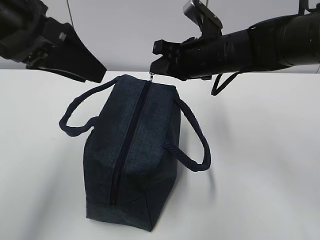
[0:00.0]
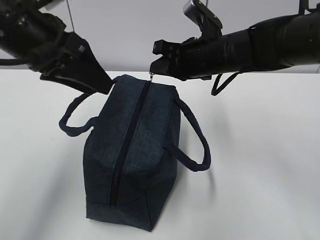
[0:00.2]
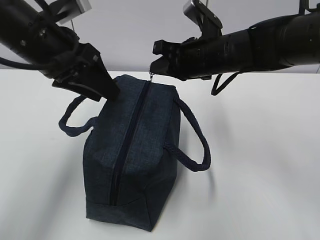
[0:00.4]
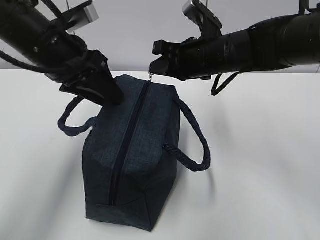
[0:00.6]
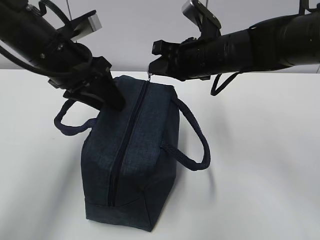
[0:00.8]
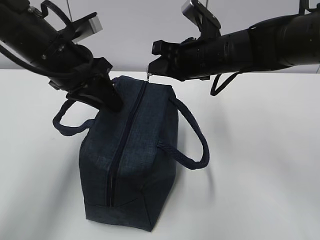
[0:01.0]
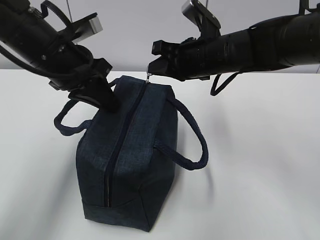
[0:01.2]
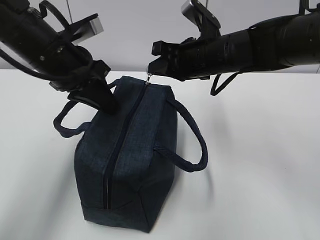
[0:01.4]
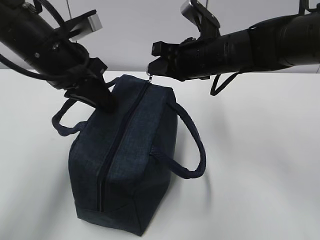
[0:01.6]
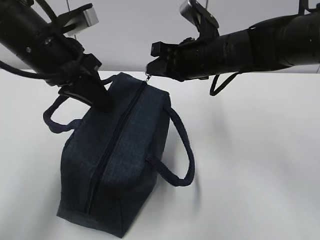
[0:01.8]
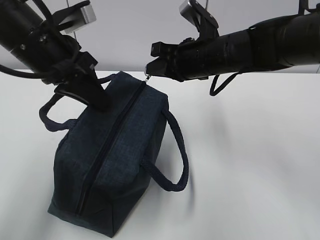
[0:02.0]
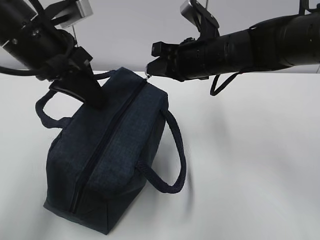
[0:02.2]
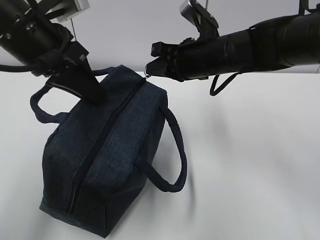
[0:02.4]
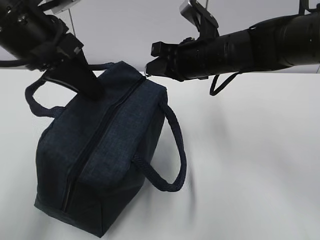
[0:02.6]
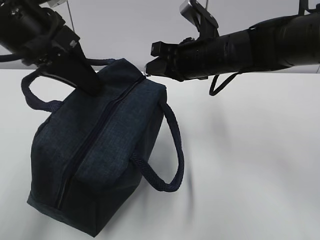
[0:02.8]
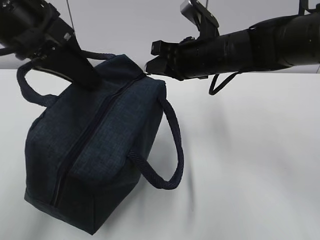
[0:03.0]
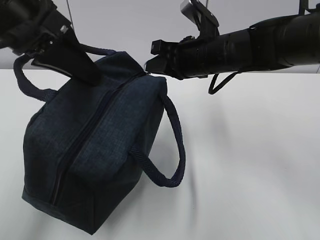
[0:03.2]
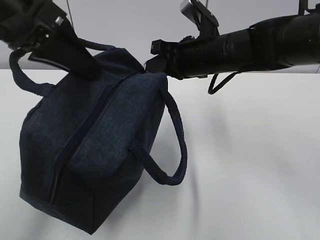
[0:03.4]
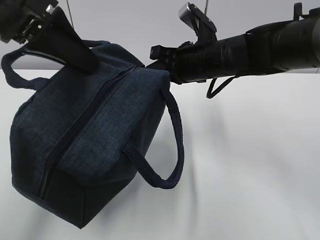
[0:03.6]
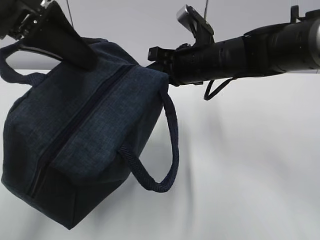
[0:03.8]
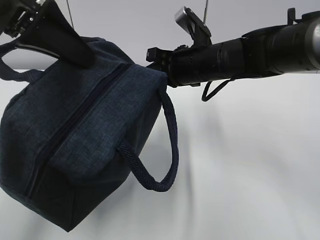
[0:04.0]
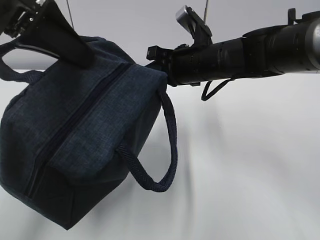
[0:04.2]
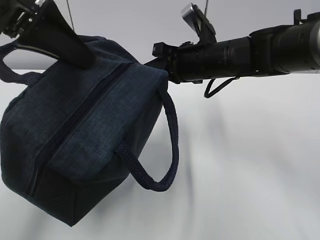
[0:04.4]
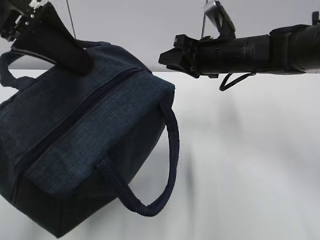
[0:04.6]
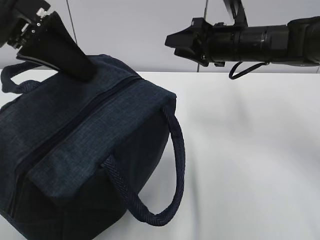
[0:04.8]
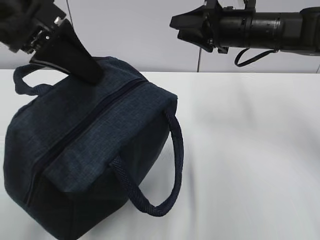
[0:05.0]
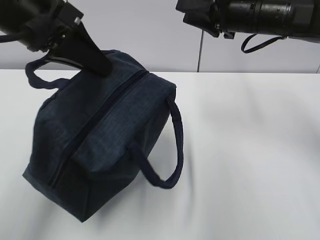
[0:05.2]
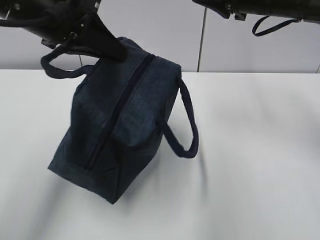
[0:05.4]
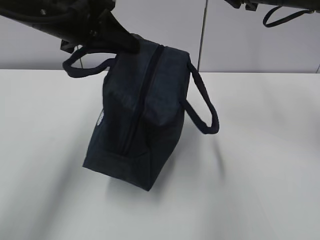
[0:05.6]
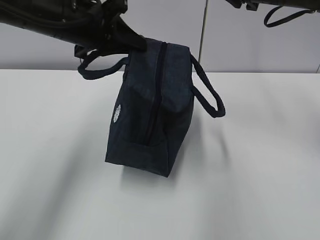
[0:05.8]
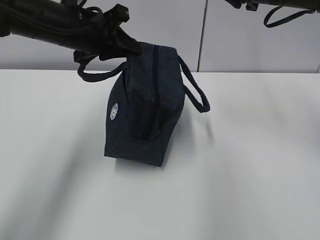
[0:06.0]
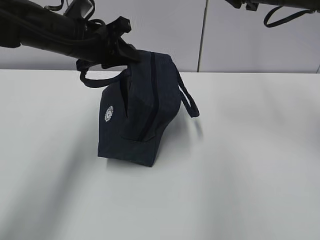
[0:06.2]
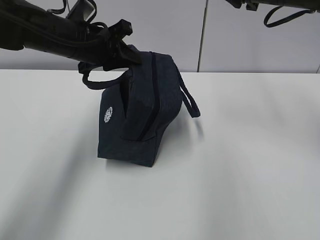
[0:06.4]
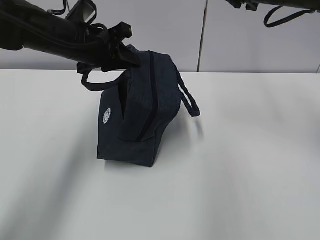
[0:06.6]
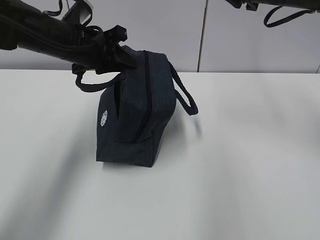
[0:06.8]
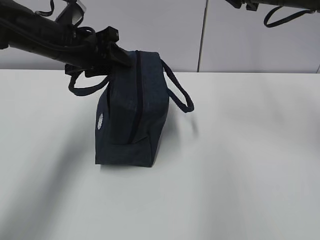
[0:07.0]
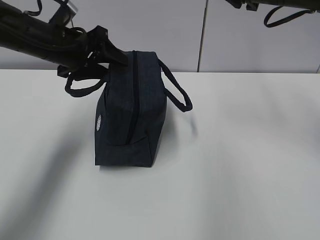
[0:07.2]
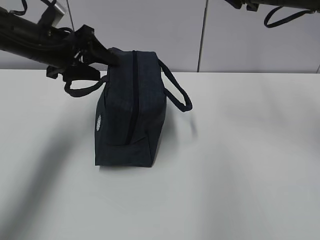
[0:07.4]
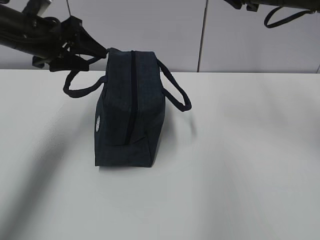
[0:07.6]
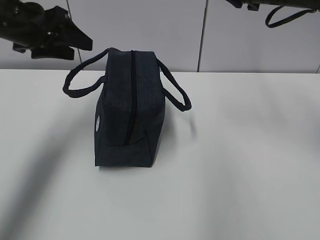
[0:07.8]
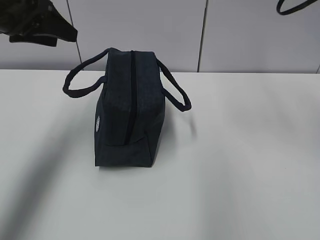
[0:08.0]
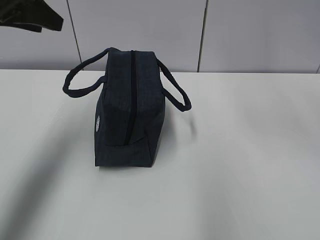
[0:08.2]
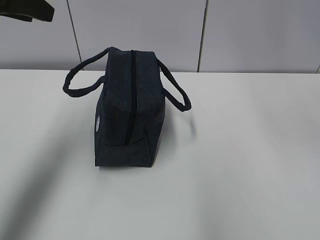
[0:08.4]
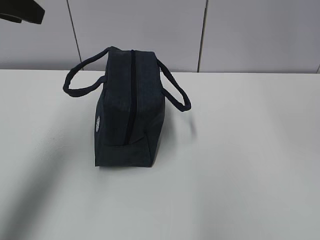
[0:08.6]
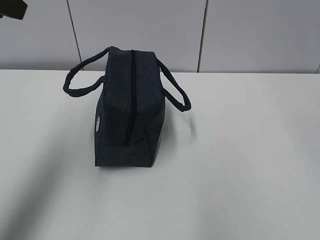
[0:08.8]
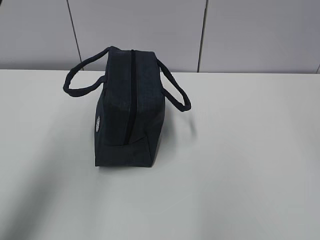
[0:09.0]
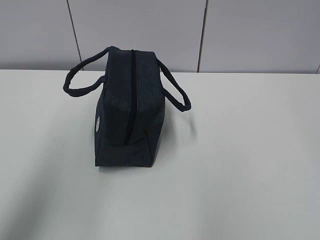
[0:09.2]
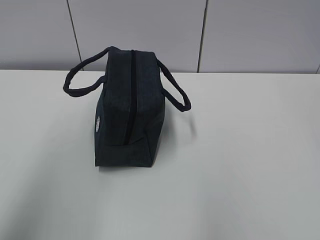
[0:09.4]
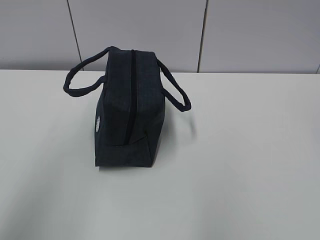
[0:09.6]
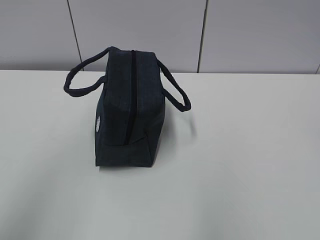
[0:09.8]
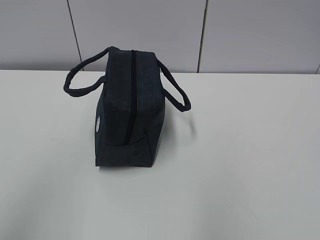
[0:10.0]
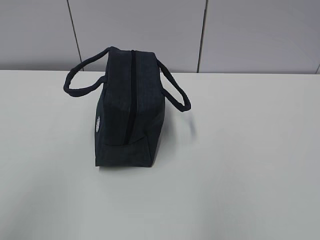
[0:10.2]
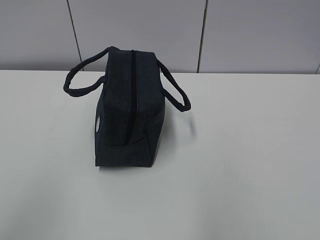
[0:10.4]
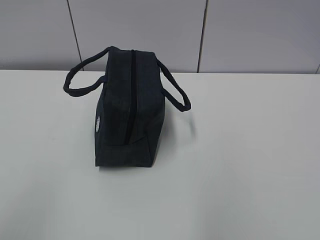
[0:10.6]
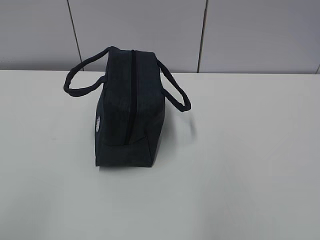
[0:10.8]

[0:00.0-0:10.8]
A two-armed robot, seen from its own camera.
0:00.0 to 0:01.6: The left gripper is displaced downward and forward by about 10 cm, and closes its fingers.
0:01.6 to 0:03.0: The left gripper is displaced upward by about 5 cm.
0:03.0 to 0:04.6: The right gripper opens up.
0:04.6 to 0:06.2: The left gripper heads forward and downward, covering about 20 cm; the right gripper moves upward and to the right, roughly 15 cm.
0:06.2 to 0:07.8: The left gripper is displaced to the left by approximately 10 cm, and opens its fingers.
0:07.8 to 0:09.2: The grippers both shift backward and upward by roughly 30 cm.
0:09.2 to 0:10.8: The left gripper is displaced backward and downward by some 25 cm.

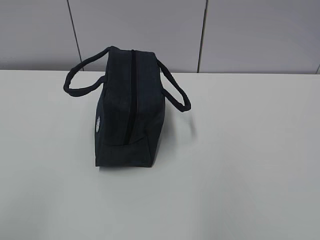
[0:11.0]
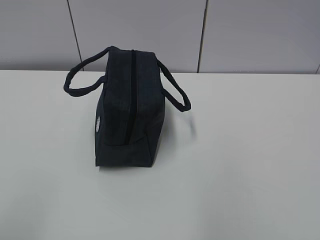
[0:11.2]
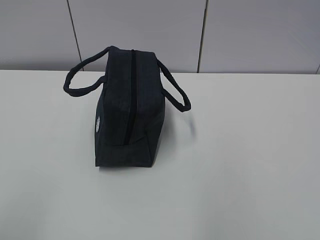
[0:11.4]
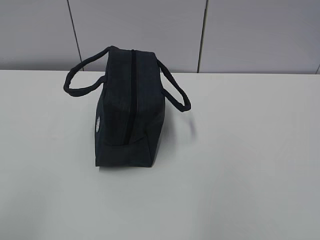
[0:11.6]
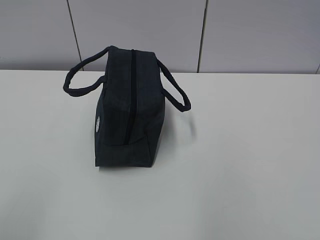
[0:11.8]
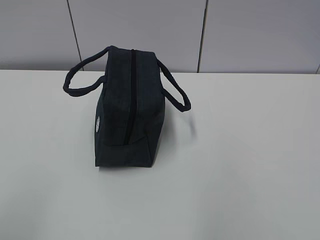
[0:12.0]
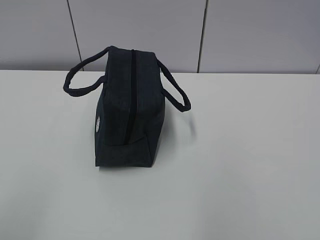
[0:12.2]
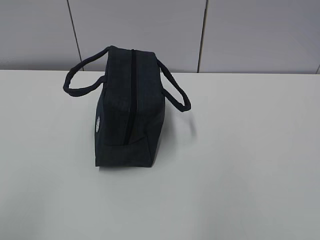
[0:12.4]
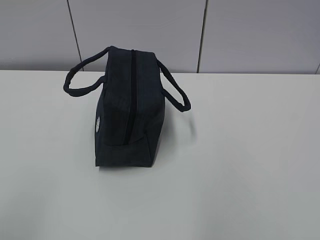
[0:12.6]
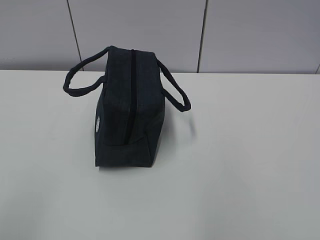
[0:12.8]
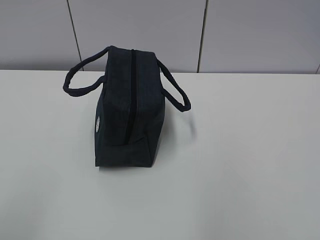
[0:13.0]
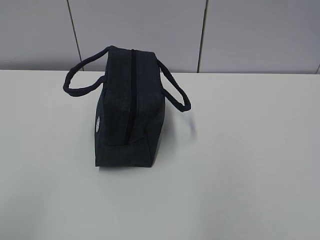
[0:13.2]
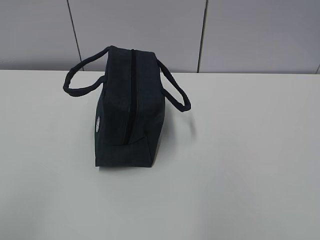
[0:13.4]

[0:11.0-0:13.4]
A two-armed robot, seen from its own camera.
0:12.2 to 0:13.4: Both grippers stay about where they are.

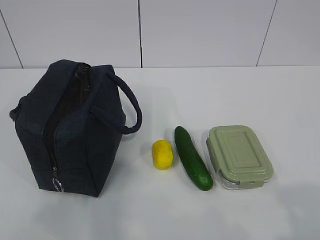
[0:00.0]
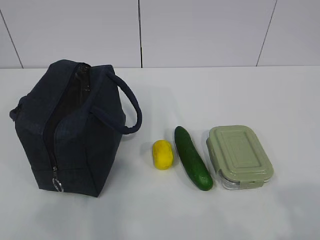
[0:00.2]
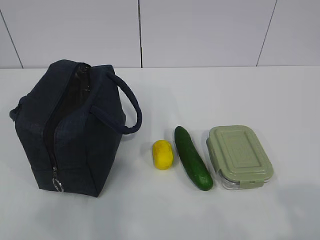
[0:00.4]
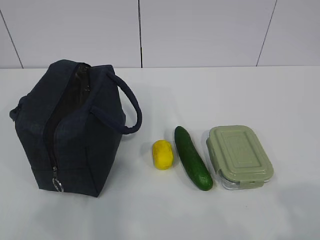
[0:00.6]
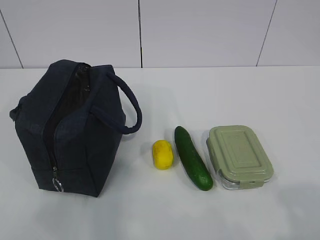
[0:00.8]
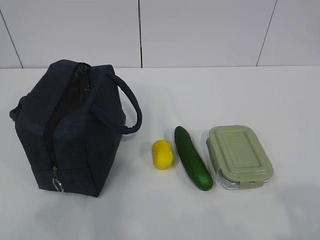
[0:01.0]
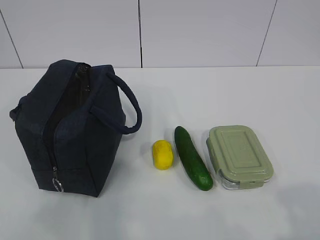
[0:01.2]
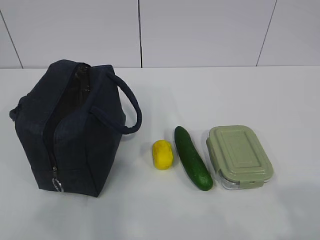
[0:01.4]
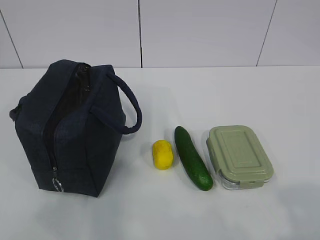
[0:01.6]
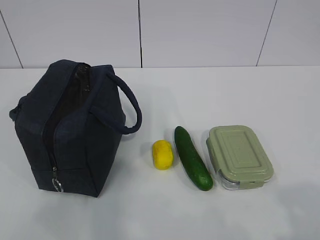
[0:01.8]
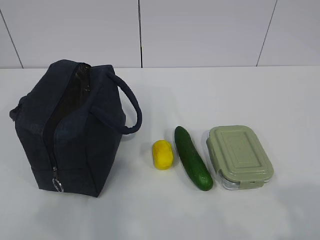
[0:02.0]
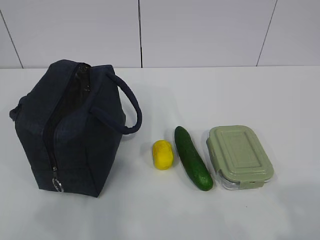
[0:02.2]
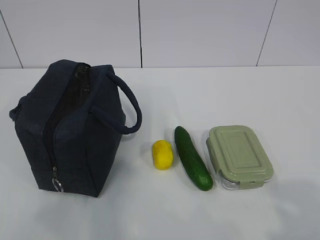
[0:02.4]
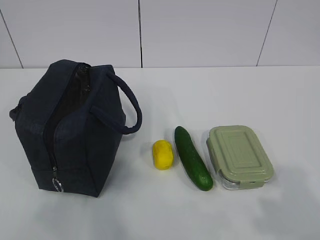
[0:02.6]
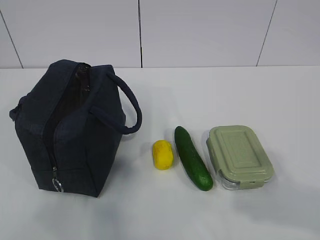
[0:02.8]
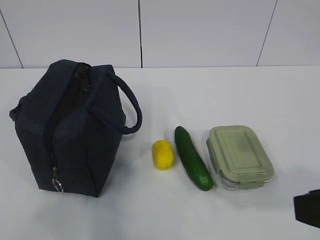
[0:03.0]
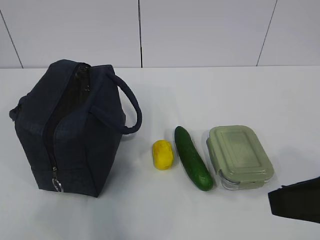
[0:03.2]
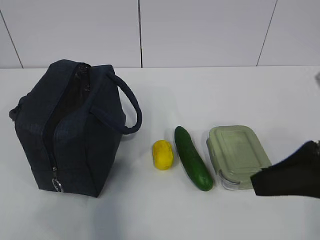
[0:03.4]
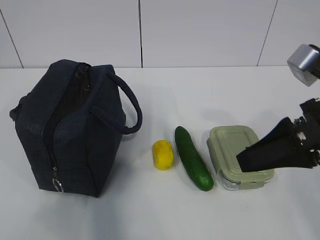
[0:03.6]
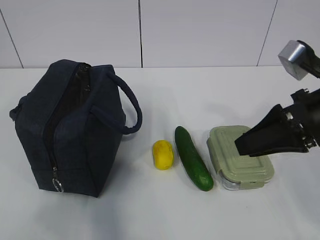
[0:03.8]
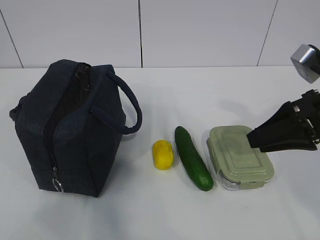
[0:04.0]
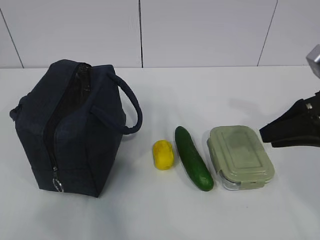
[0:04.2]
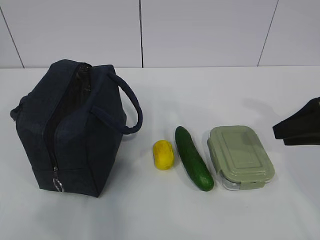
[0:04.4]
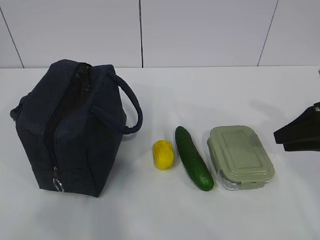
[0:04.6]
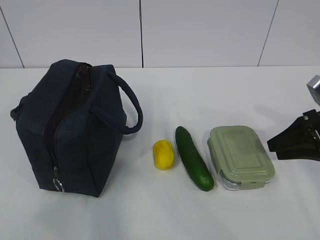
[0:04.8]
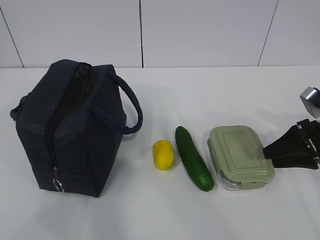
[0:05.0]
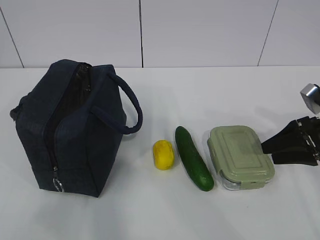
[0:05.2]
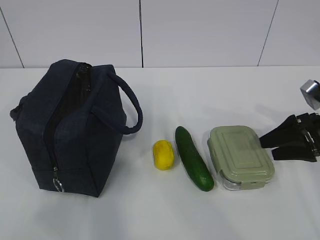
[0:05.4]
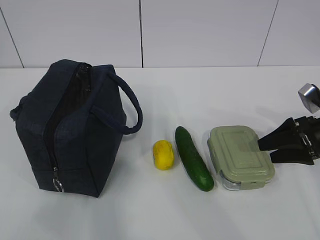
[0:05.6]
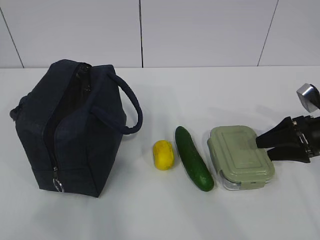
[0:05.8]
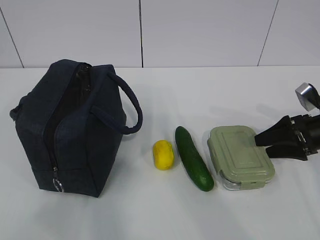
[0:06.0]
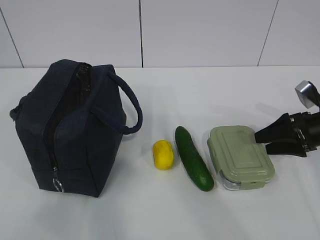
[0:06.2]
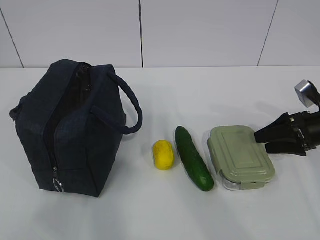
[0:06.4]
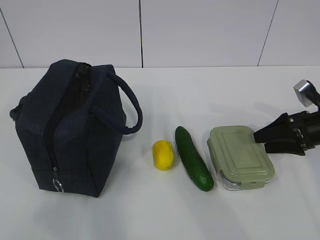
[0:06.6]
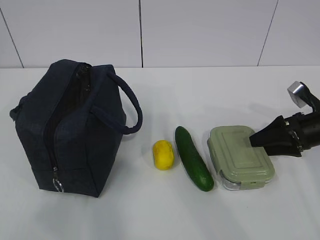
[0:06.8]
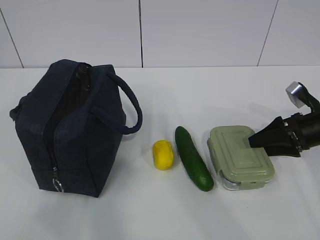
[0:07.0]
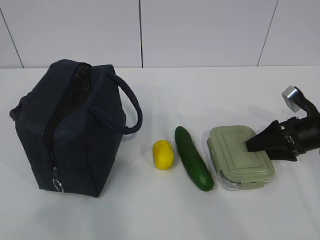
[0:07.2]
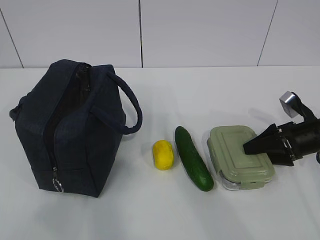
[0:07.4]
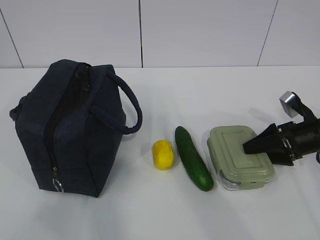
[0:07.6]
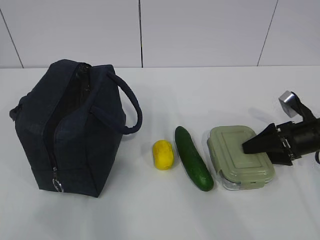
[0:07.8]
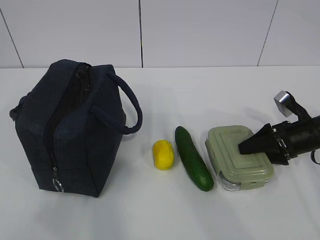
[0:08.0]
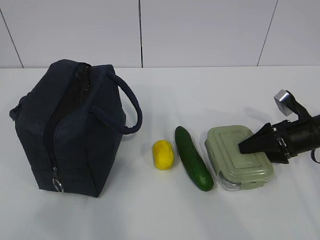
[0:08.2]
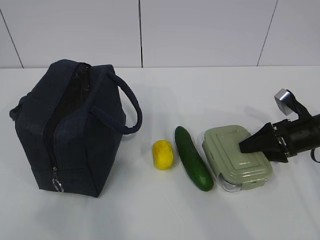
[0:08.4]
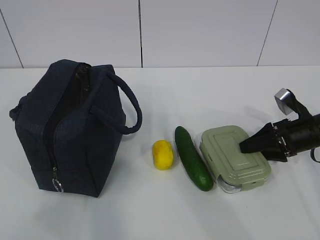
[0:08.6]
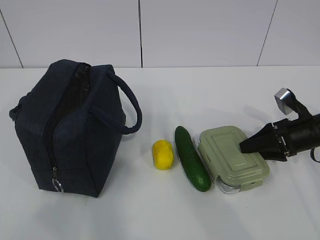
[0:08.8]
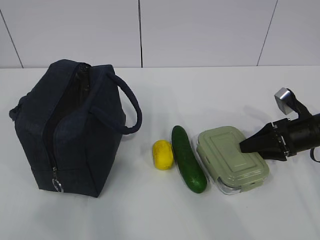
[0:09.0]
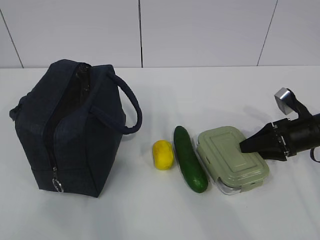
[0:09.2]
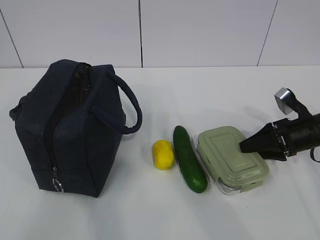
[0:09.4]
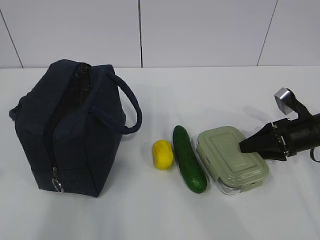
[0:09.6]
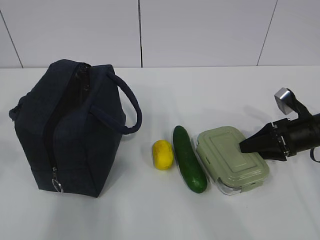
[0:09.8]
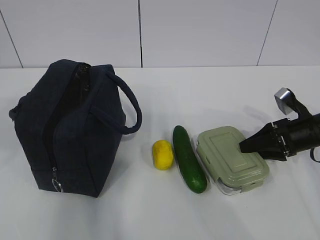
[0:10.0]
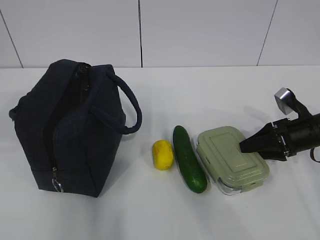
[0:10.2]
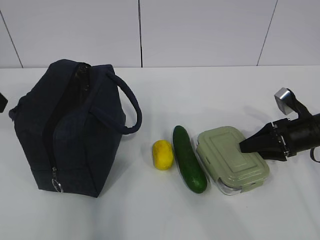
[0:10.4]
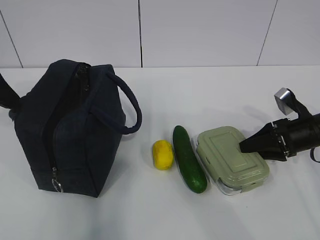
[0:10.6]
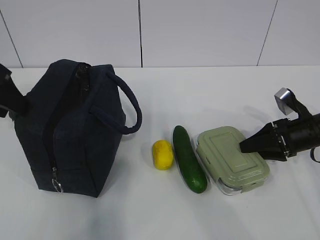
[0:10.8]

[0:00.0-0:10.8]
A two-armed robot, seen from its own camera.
Step, 0:00.0 to 0:09.4: Grasp the box with the right gripper.
0:01.6 to 0:03.0: The right gripper goes some 10 cm forward and to the left.
0:03.0 to 0:04.6: The right gripper is displaced forward, to the right and downward by some 25 cm.
0:04.6 to 0:06.2: The right gripper is displaced downward and forward by approximately 10 cm, and opens up.
0:06.2 to 0:07.8: The grippers move only a little.
0:07.8 to 0:09.2: The right gripper closes its fingers.
0:09.2 to 0:10.8: The left gripper goes some 30 cm forward.
